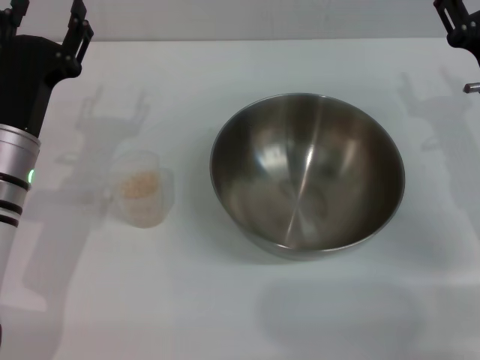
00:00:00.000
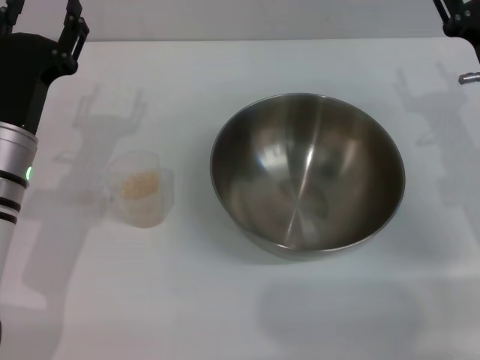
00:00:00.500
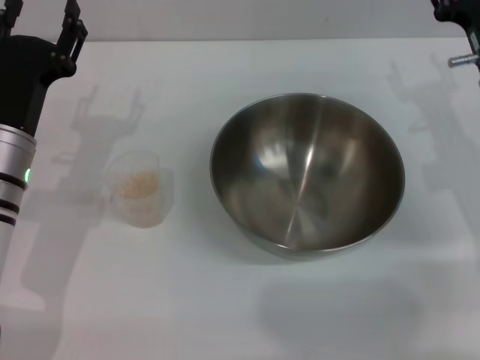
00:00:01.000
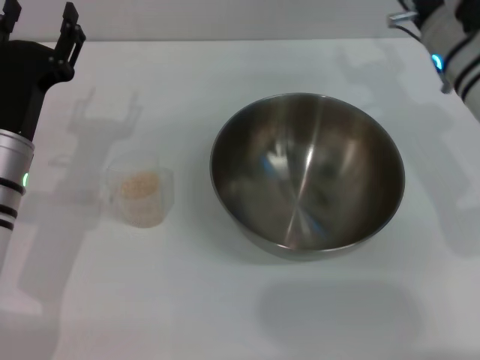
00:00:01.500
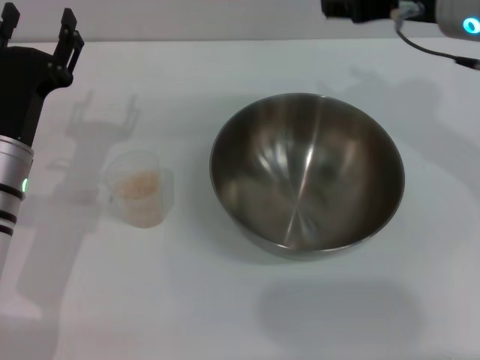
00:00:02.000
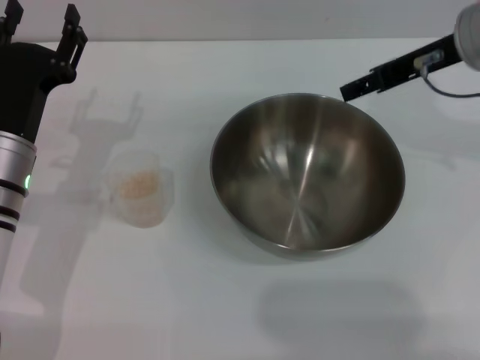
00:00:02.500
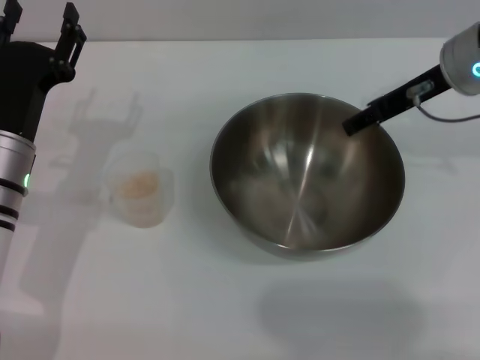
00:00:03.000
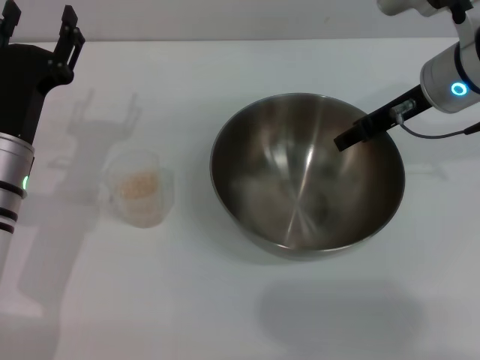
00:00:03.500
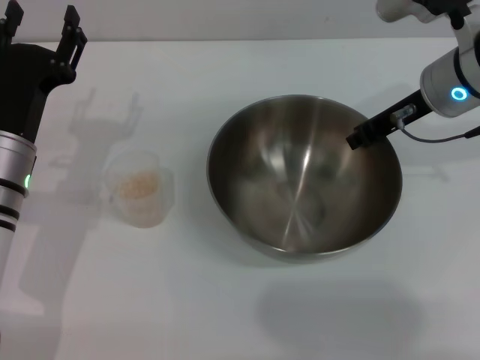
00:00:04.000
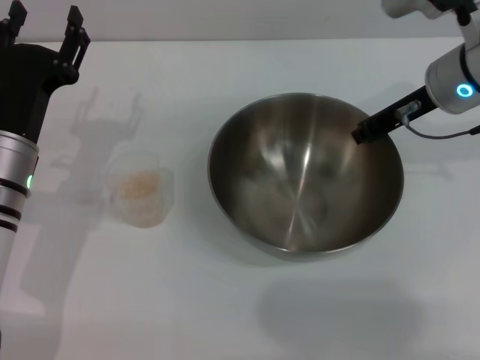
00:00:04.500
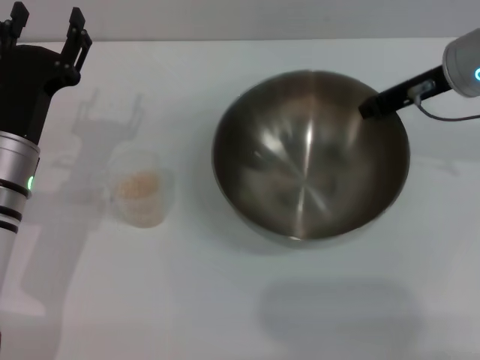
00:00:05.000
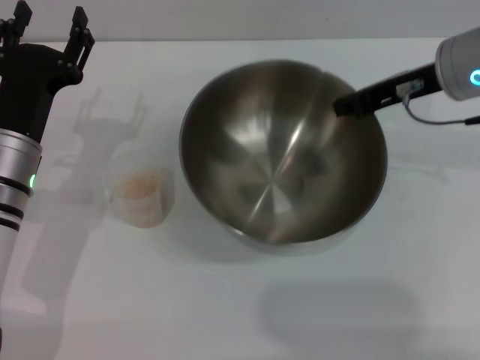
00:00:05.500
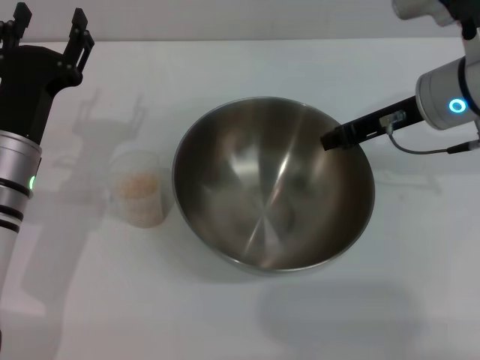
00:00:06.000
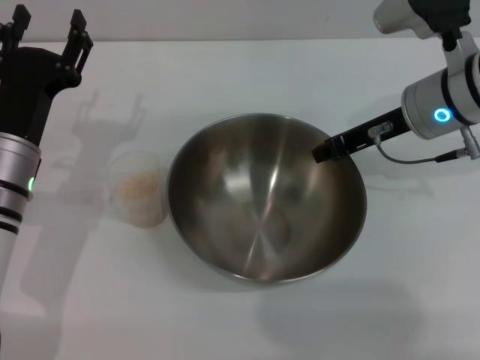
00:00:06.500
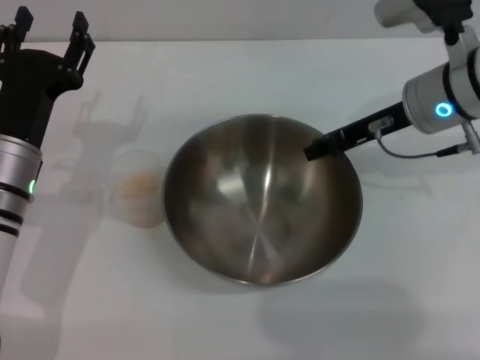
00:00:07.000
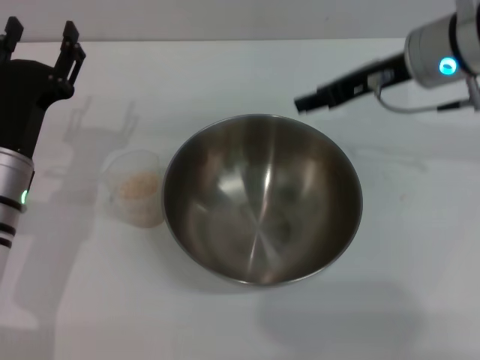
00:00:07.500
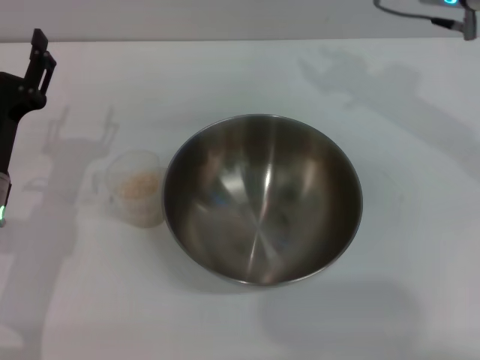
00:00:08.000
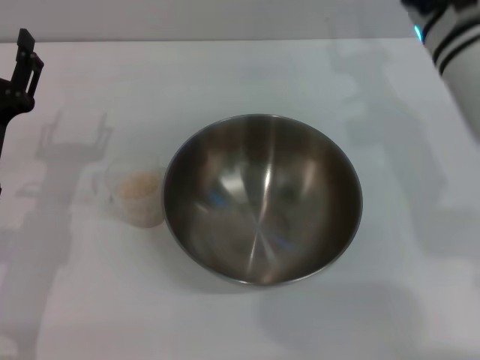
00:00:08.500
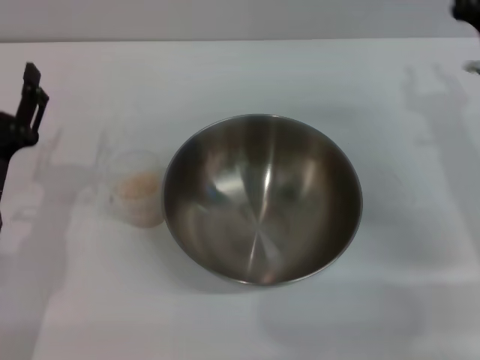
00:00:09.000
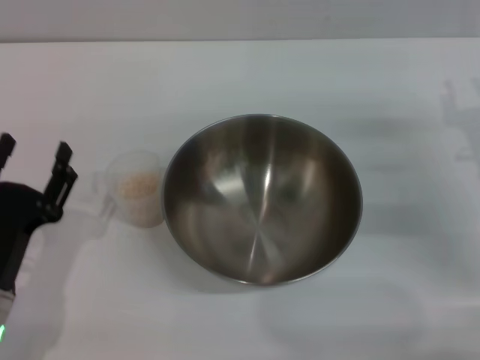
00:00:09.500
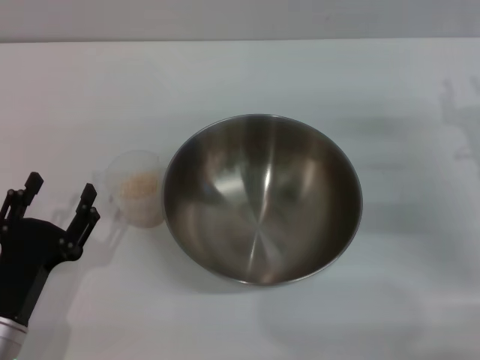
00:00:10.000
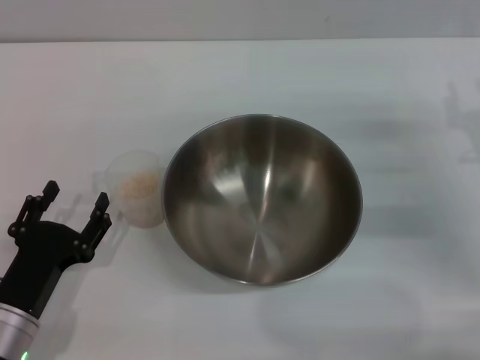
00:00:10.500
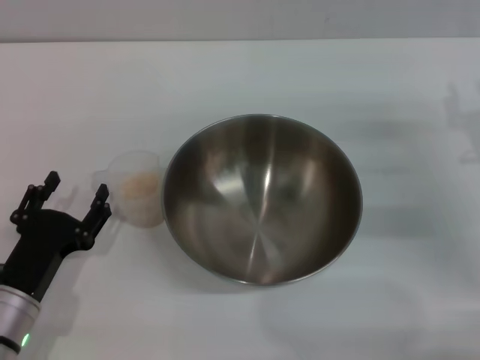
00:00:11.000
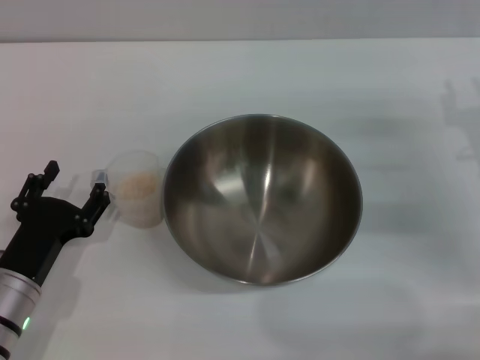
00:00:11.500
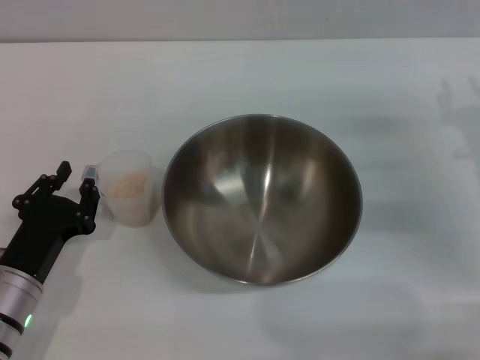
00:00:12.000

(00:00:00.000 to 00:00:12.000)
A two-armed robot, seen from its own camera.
Task of the whole recording: Place the bowl in the middle of the table with one hand and pour the rice from the grain cup into it with the other hand.
Step, 00:00:00.000 - 00:00:05.500: Pick up the bowl with the right gripper.
Step, 00:00:06.000 - 00:00:07.500: Place the bowl in the center of view with the right gripper.
00:00:00.000 - 00:00:02.000: The right gripper shifts roughly 15 cm upward and to the left.
00:00:02.000 - 00:00:04.000: The right gripper heads downward, covering about 5 cm, and closes its fingers.
00:00:06.000 - 00:00:08.000: The right gripper goes approximately 5 cm upward, and opens.
00:00:08.000 - 00:00:10.000: The right gripper travels downward, to the right and backward by approximately 20 cm. The left gripper goes approximately 15 cm backward and downward.
00:00:10.000 - 00:00:12.000: The grippers make only small movements.

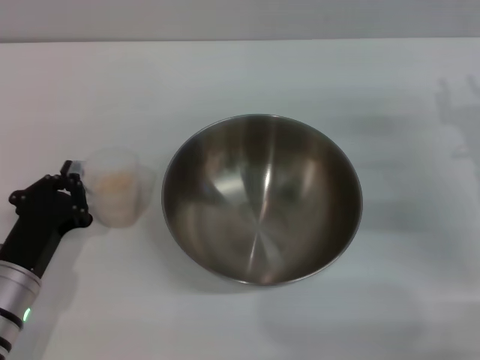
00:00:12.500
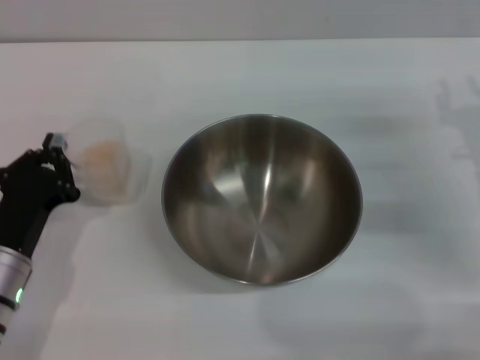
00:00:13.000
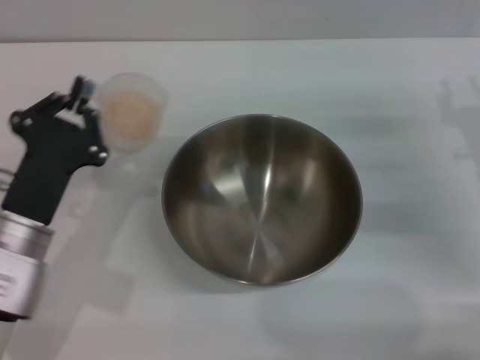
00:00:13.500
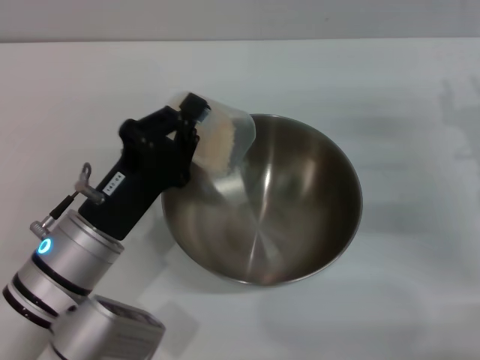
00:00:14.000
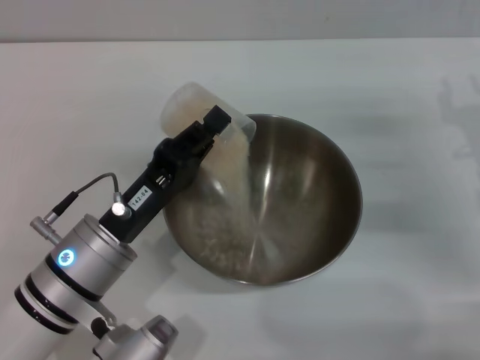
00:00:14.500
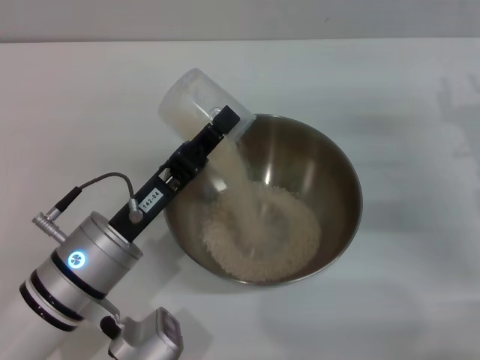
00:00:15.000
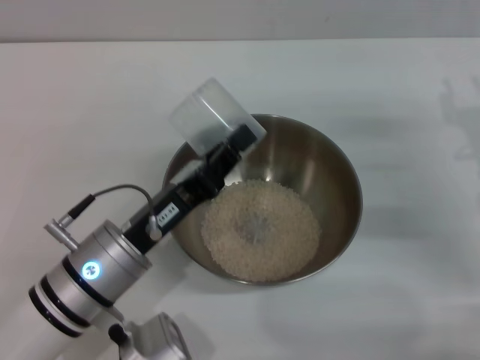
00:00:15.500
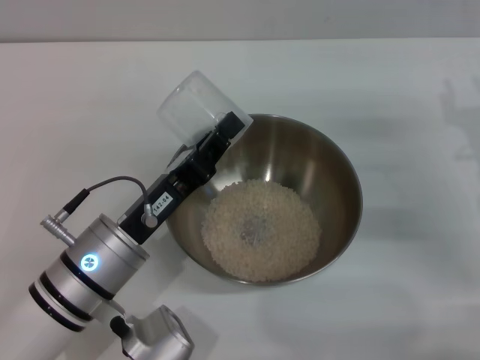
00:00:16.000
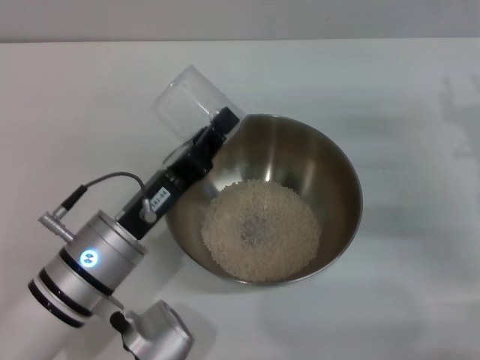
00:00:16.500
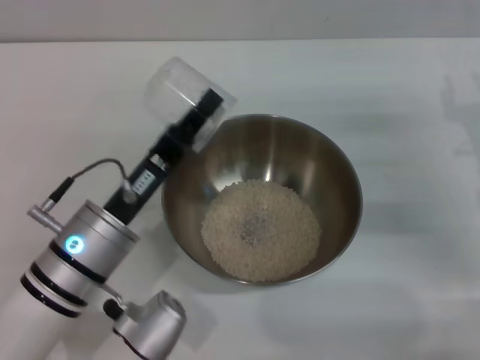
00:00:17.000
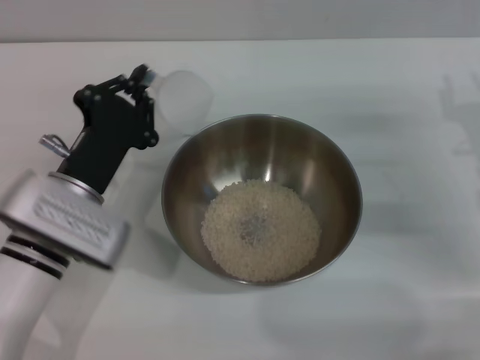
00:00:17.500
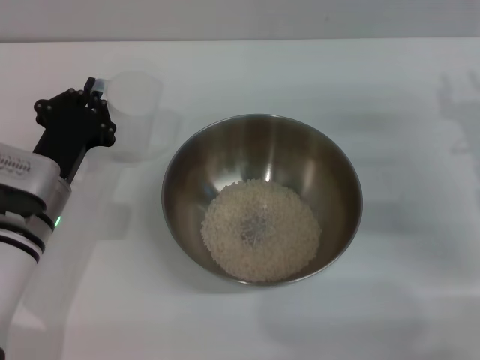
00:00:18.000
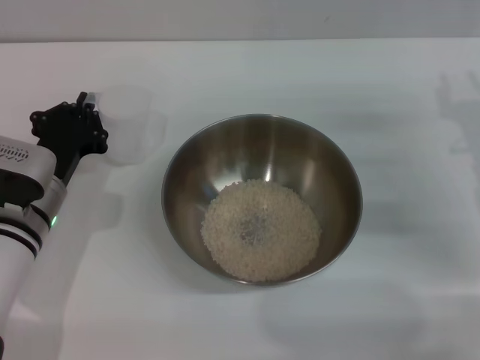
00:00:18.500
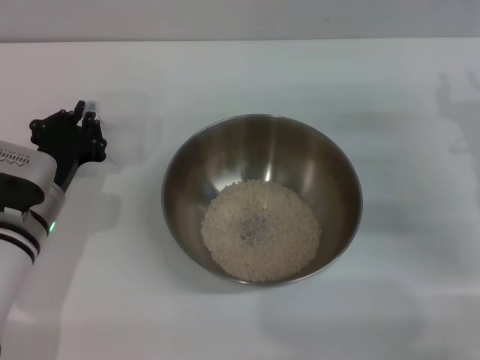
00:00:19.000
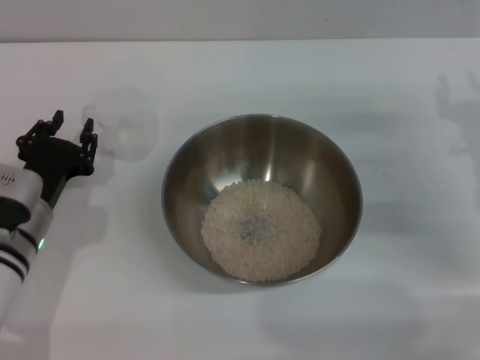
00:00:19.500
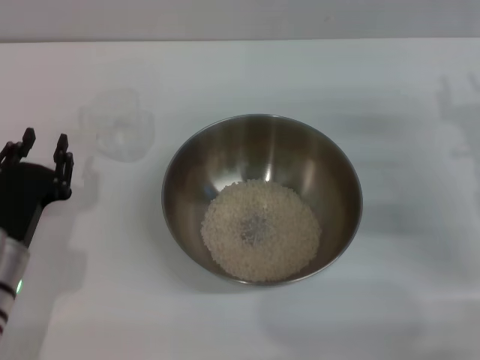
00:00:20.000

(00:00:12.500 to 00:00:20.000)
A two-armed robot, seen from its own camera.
Task of the whole recording: Place the bowl in the middle of the table with one hand and pour the rice from the grain cup into it with the other hand.
Step, 00:00:14.000 - 00:00:15.000: Pour the rice from the cup into the bowl with the left gripper.
Step, 00:00:15.500 - 00:00:19.000: Place the cup on the table with the left gripper.
00:00:12.500 - 00:00:14.500: The left gripper heads to the right and upward, covering approximately 10 cm.
00:00:14.500 - 00:00:16.500: The grippers move only a little.
00:00:16.500 - 00:00:18.000: The left gripper heads to the left and forward, covering roughly 10 cm.
00:00:18.000 - 00:00:20.000: The left gripper shifts about 5 cm backward, and opens up.
